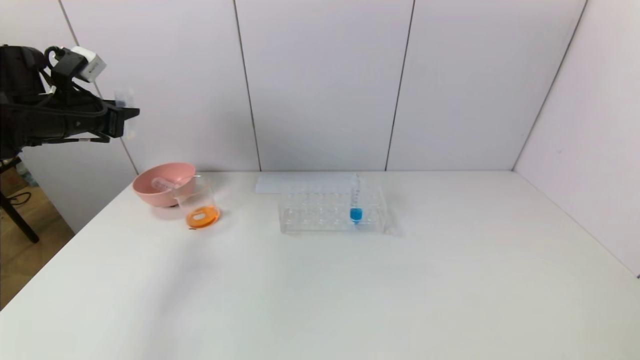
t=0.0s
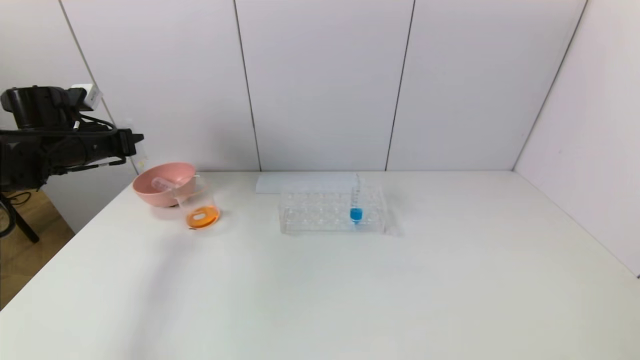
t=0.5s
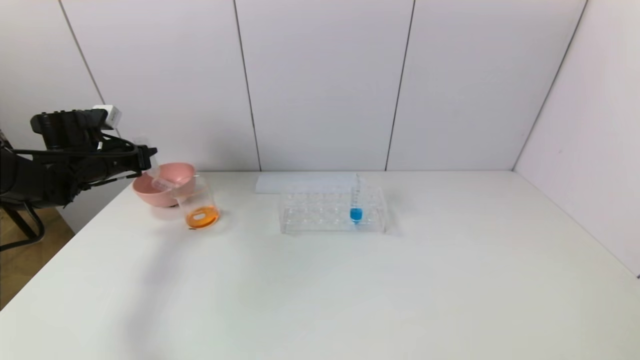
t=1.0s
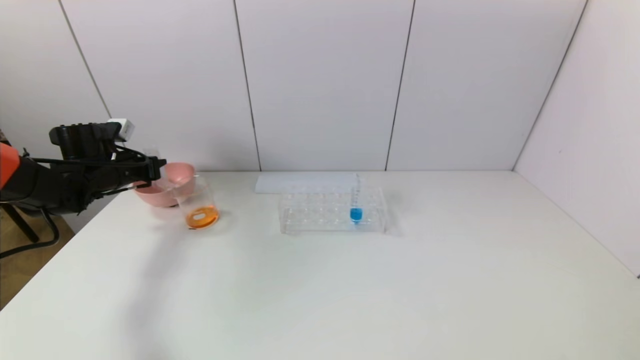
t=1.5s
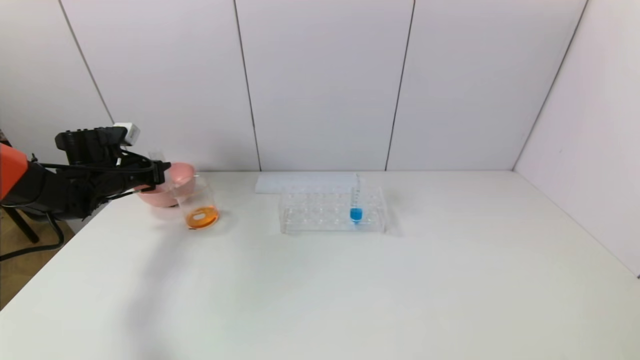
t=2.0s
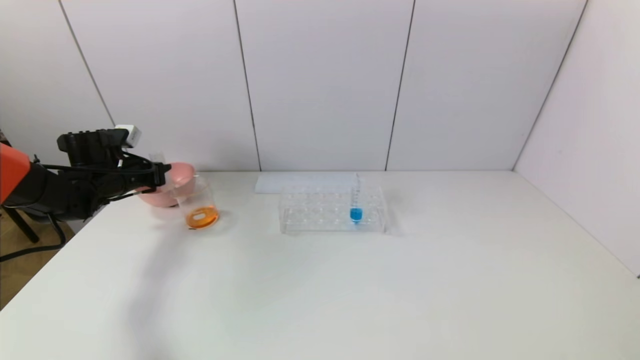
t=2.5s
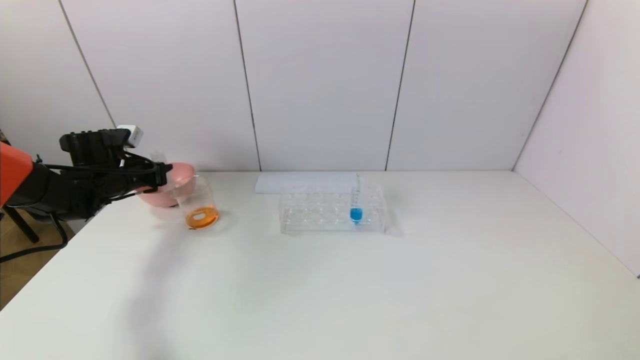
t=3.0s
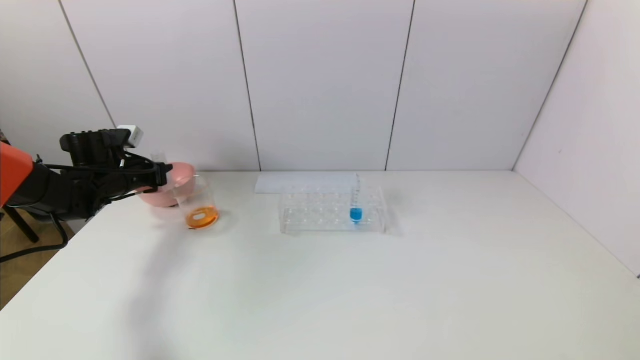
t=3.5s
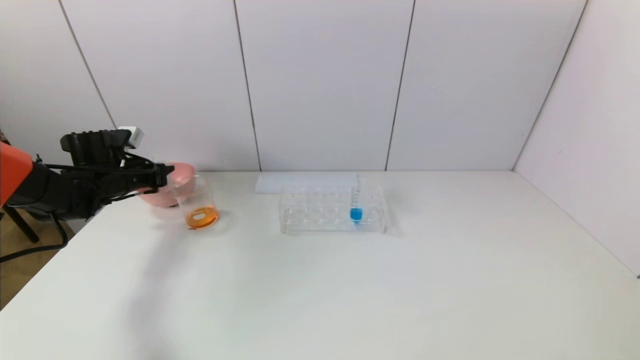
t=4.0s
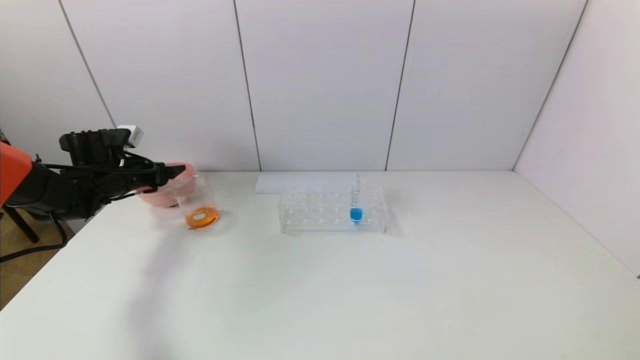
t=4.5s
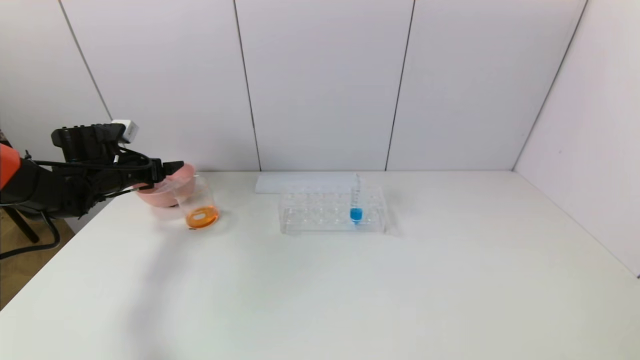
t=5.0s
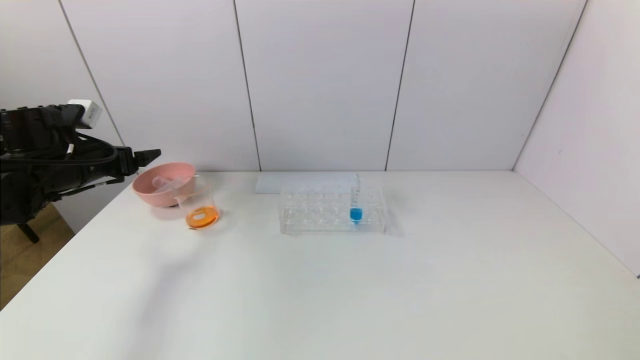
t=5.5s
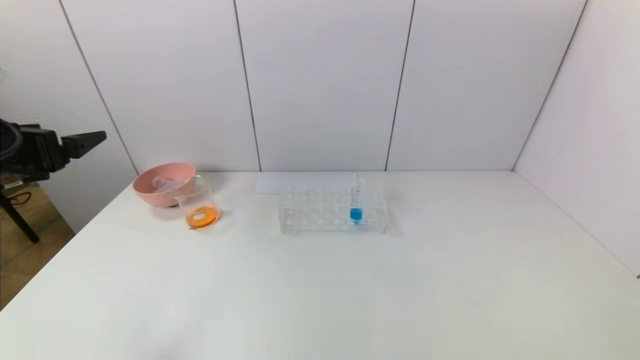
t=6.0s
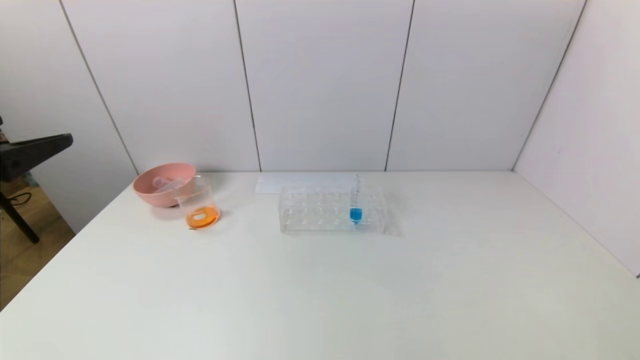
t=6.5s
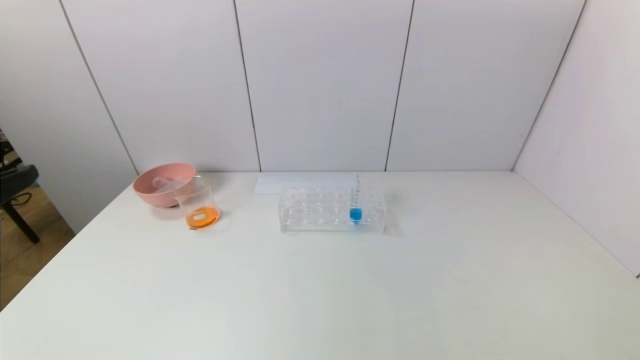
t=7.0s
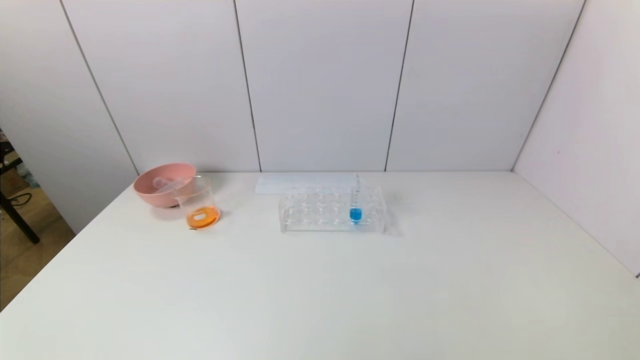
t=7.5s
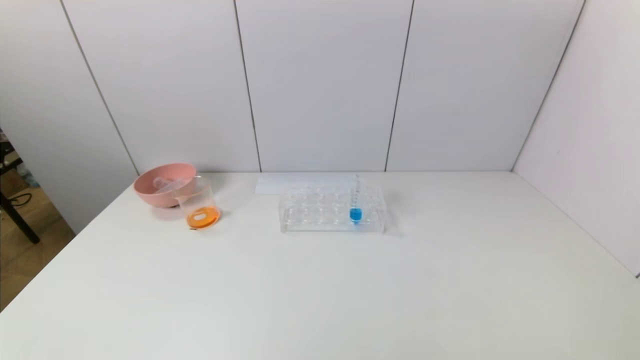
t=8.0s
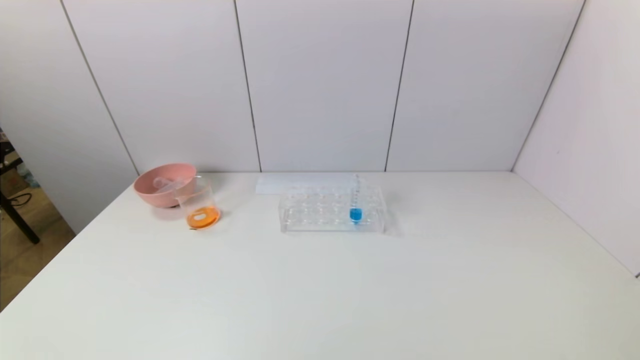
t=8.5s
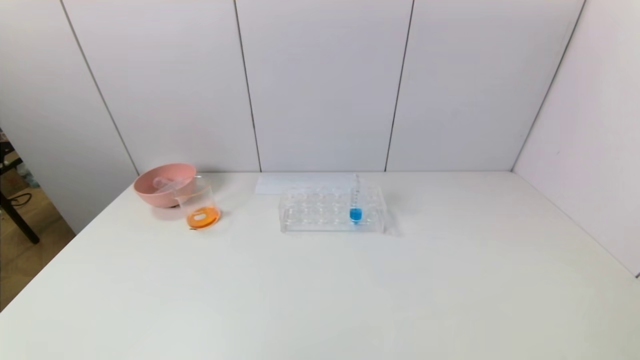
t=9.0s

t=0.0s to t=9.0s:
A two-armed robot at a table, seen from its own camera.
Task of the whole recording: pick up the test tube with yellow pigment and the test tube with red pigment by grippers and pour them into the beaker.
Step, t=0.0s to t=4.0s: Place the test tube into the pink bowl with the left gripper.
t=0.0s to t=2.0s: The left gripper heads downward, covering some 15 cm.
t=2.0s to t=4.5s: The left gripper opens.
t=4.5s to t=7.0s: The left gripper goes some 40 cm backward and upward.

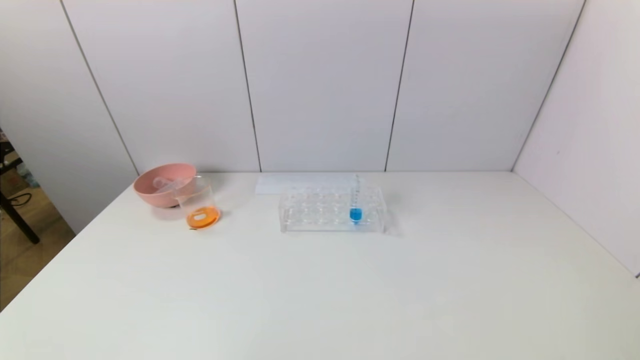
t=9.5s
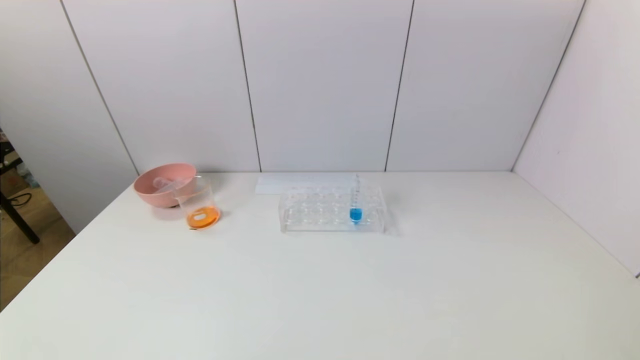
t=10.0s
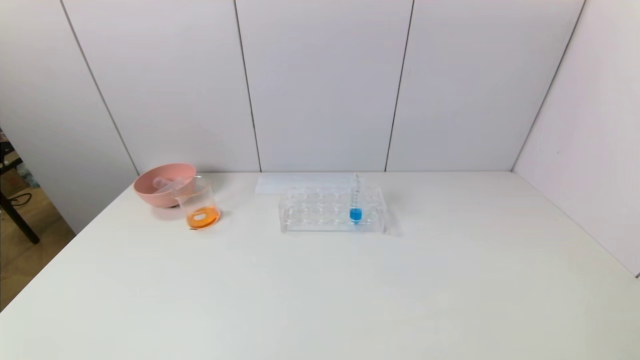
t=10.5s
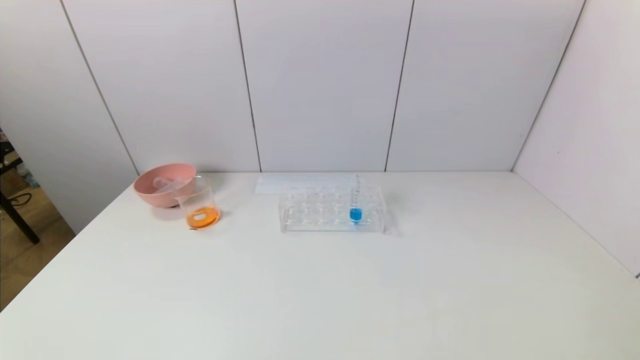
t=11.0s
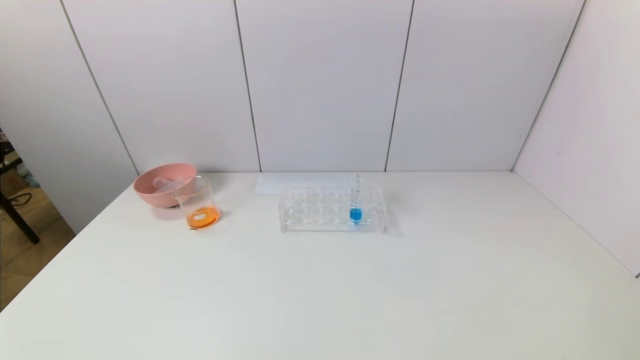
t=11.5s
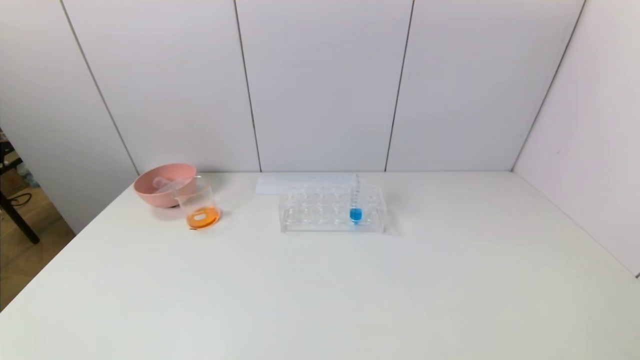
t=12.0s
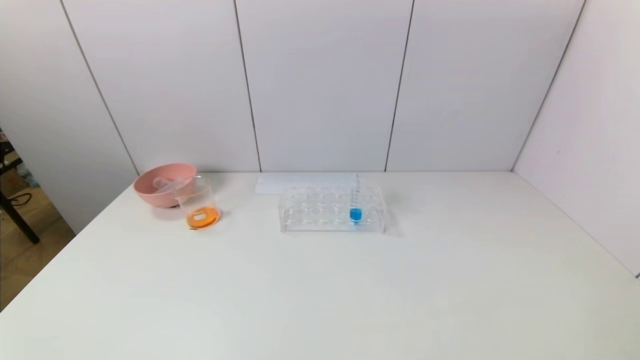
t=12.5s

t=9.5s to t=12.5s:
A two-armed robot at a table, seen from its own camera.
Task of the whole recording: pick up the test tube with yellow pigment and the test tube with red pigment by grippers and pour them into the beaker.
t=11.0s to t=12.5s: Both grippers stay about where they are.
